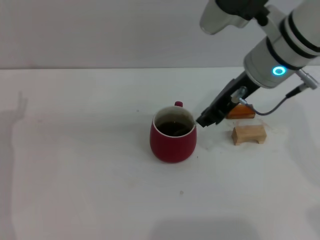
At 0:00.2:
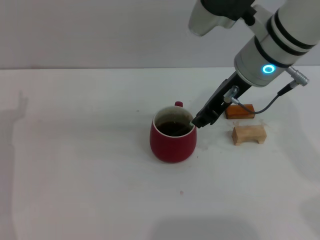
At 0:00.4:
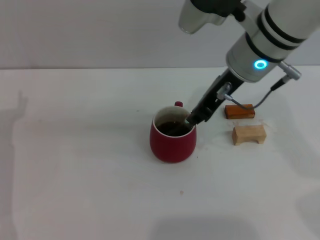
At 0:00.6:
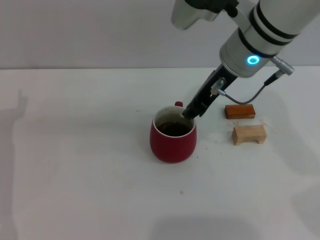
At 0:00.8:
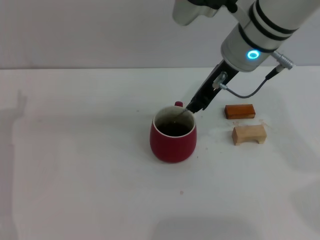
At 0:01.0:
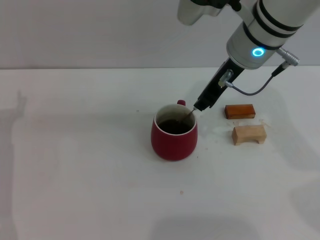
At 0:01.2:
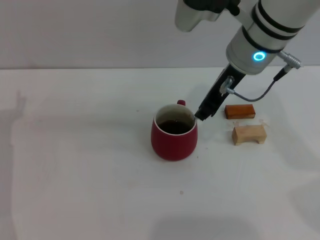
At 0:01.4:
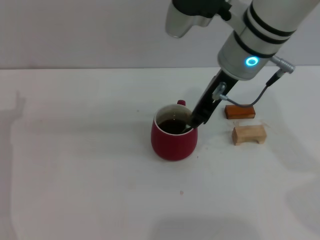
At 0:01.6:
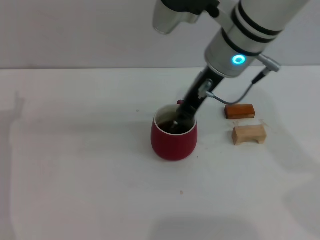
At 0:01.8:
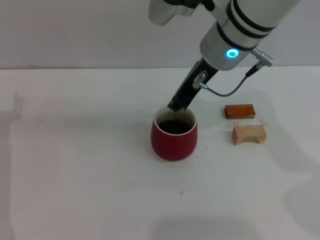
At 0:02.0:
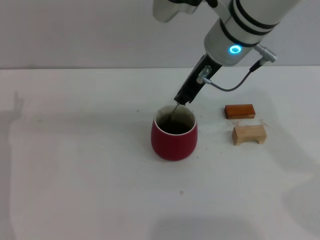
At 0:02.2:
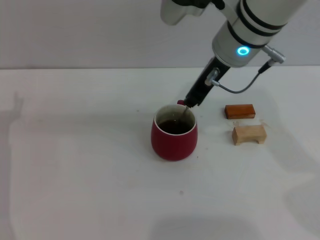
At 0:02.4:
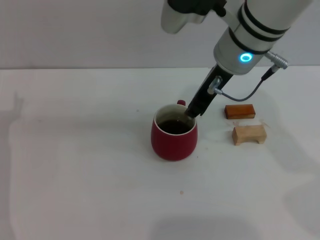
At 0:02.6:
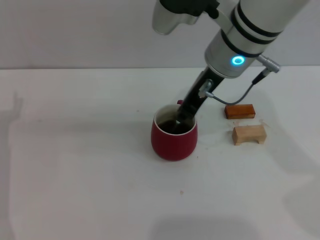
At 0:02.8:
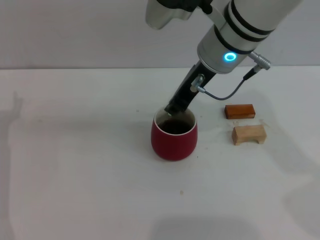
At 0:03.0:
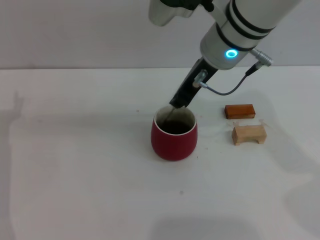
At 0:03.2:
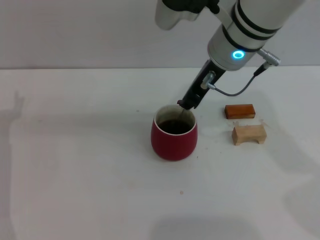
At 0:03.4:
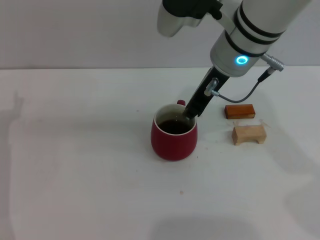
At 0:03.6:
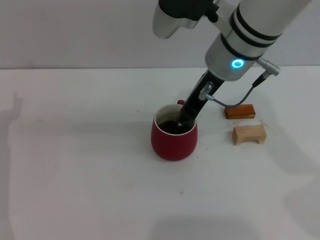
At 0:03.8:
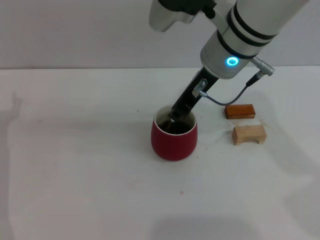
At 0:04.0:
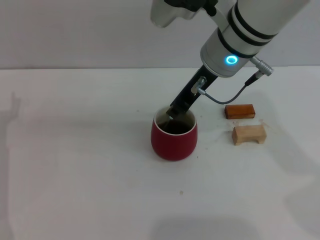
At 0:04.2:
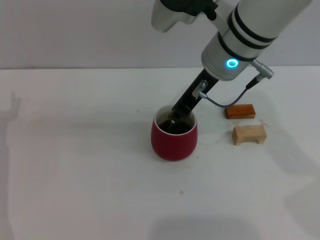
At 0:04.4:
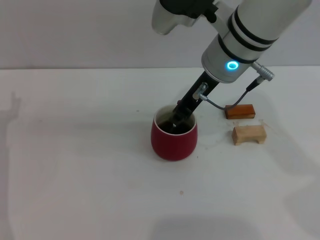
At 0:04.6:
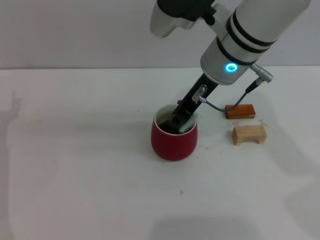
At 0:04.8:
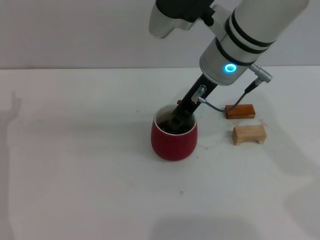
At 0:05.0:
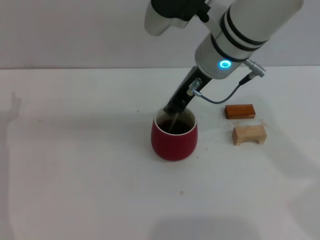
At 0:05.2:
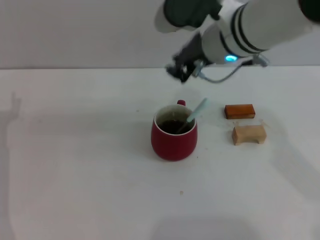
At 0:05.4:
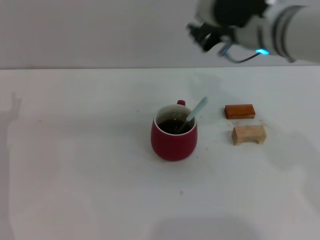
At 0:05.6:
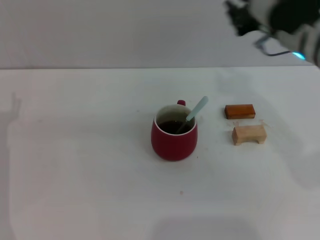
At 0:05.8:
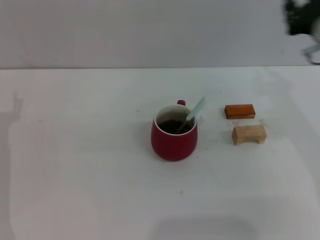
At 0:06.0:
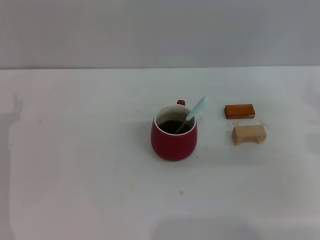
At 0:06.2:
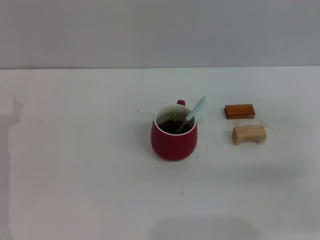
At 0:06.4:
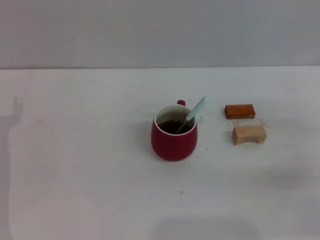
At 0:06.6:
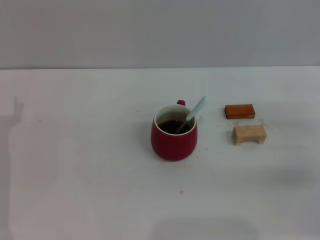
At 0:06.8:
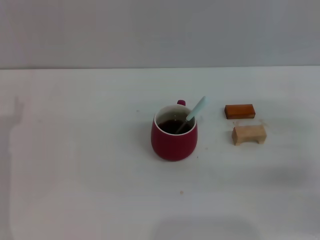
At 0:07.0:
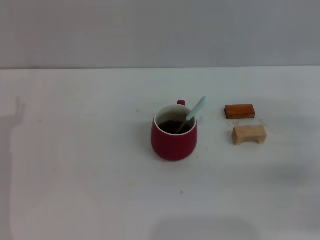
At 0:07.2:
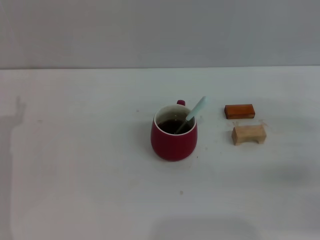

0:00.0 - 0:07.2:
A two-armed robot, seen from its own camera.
Task of the whole recording: Move the red cup to the center, lift the blue spoon, stir it three times in the cup, and put the spoon into the cup.
Step, 0:00.0 - 0:05.4: Stir the coffee in the cup with the right gripper.
0:00.0 - 0:04.4: The grippers stay close to where they were, moving slightly.
0:04.4 - 0:05.8: The right gripper moves to the right, some 15 cm.
0:05.8 - 0:07.2: The right gripper travels to the right, downward and backward by some 15 cm, and opens up.
